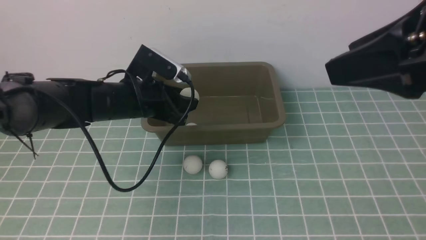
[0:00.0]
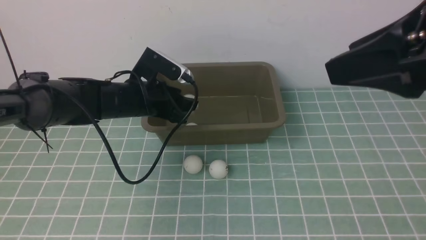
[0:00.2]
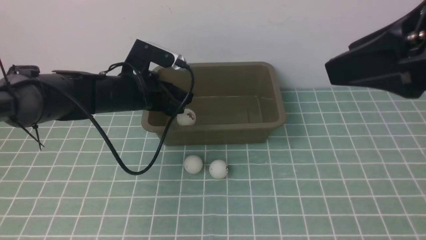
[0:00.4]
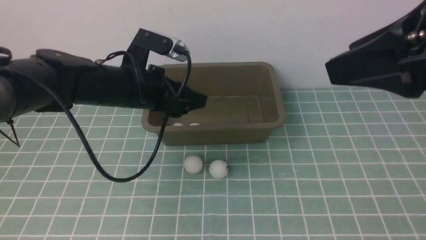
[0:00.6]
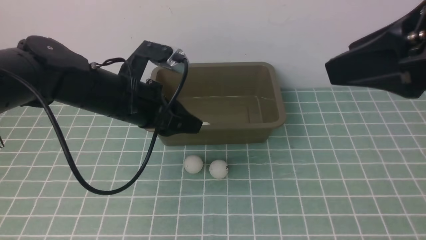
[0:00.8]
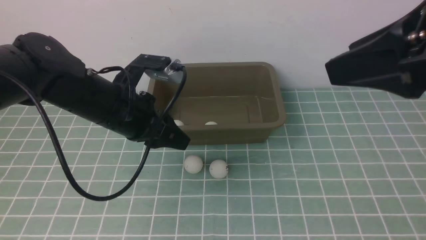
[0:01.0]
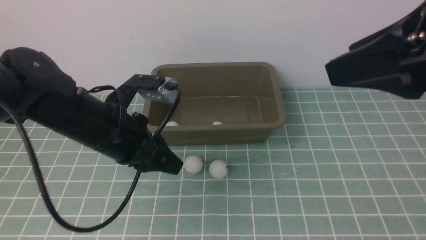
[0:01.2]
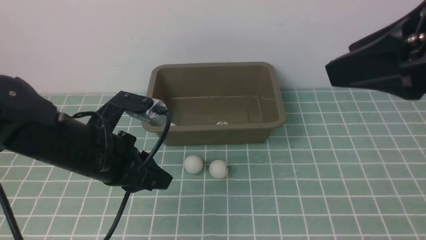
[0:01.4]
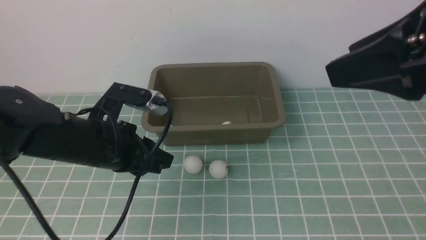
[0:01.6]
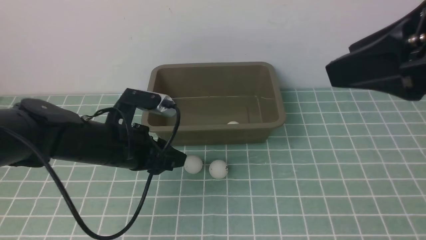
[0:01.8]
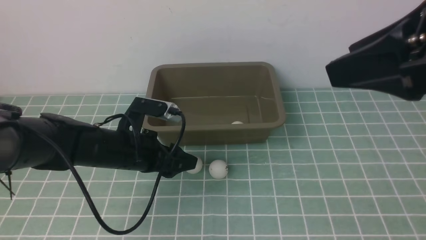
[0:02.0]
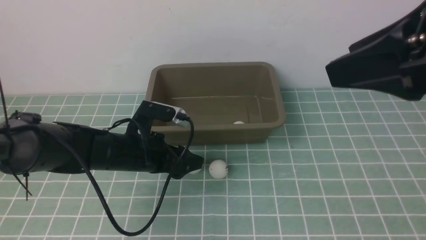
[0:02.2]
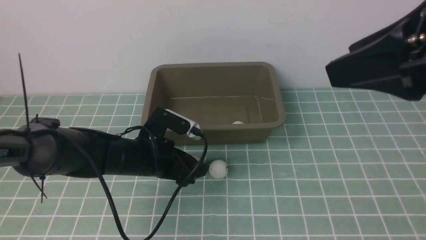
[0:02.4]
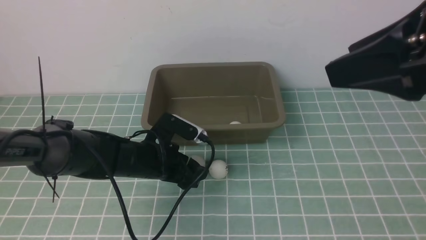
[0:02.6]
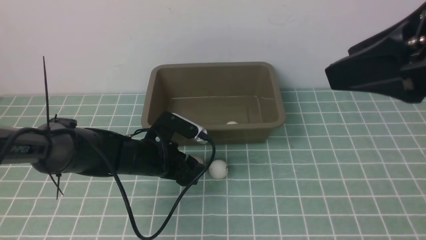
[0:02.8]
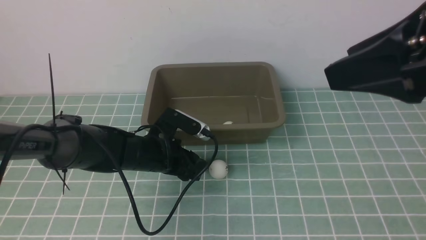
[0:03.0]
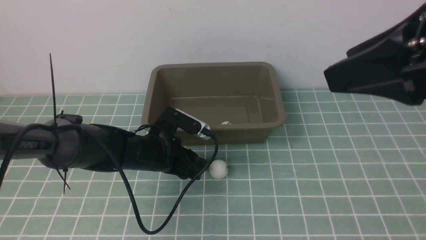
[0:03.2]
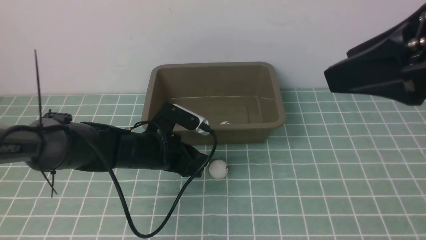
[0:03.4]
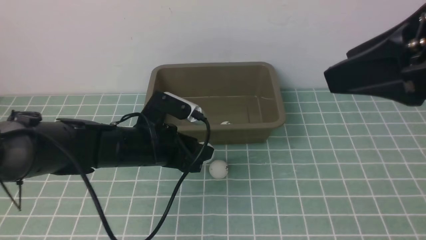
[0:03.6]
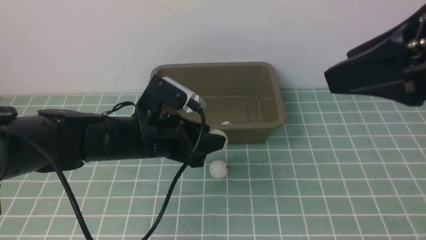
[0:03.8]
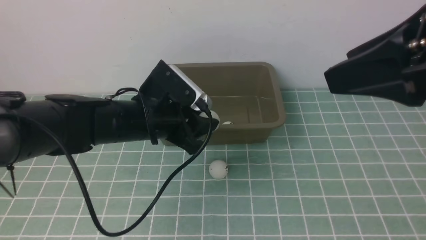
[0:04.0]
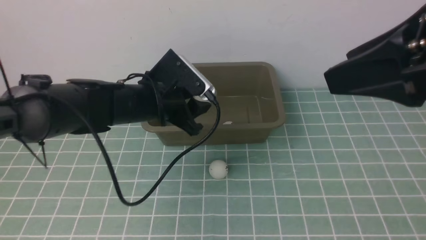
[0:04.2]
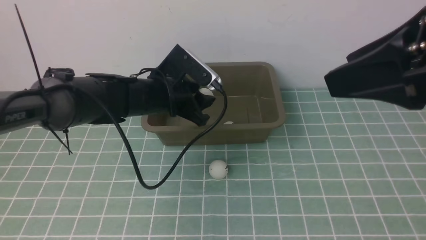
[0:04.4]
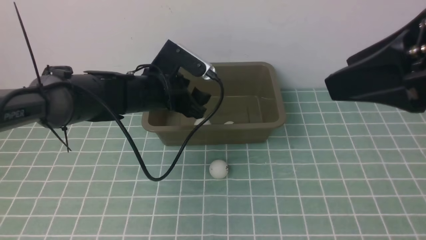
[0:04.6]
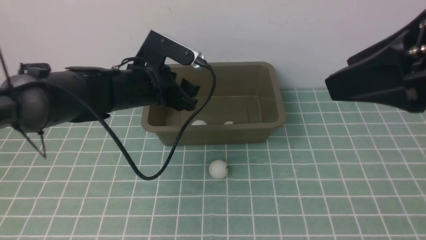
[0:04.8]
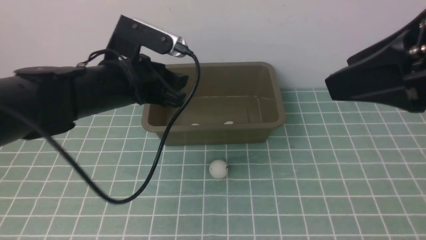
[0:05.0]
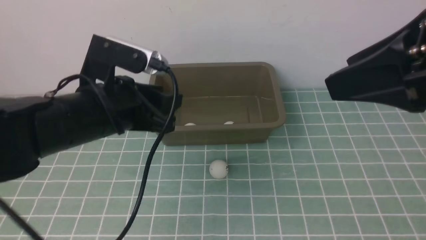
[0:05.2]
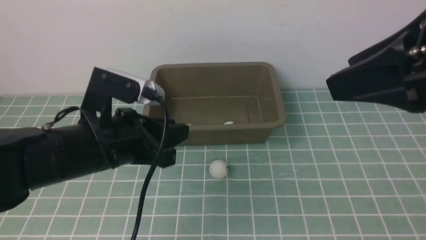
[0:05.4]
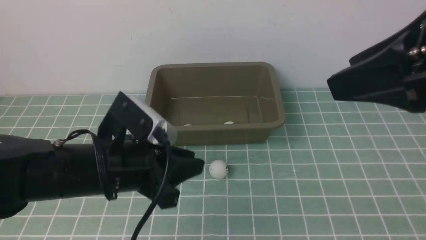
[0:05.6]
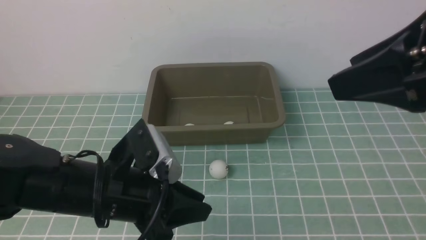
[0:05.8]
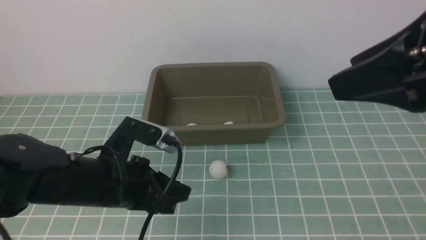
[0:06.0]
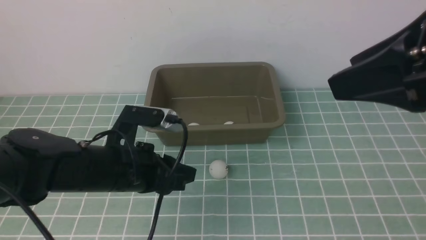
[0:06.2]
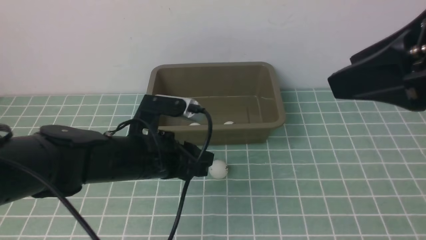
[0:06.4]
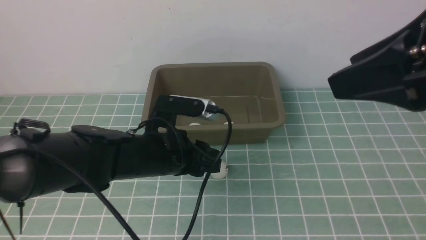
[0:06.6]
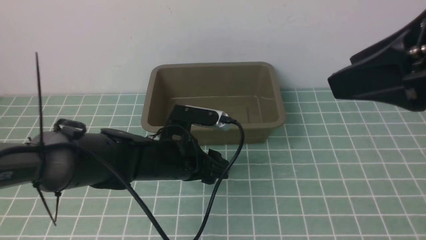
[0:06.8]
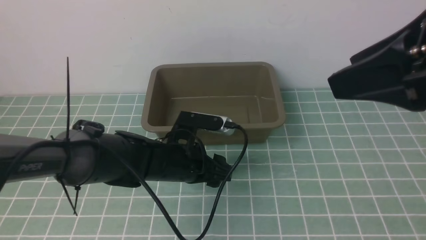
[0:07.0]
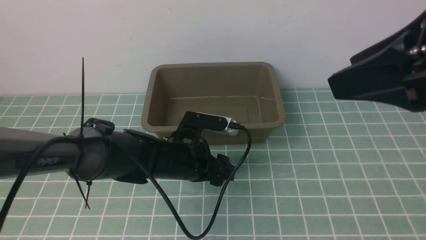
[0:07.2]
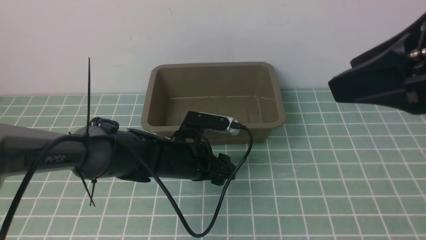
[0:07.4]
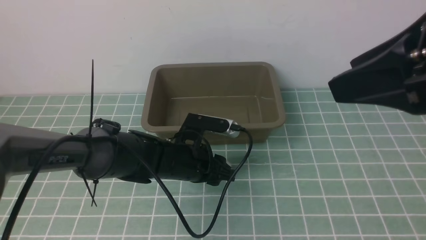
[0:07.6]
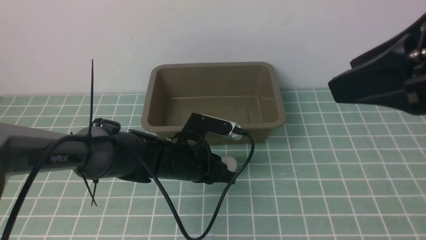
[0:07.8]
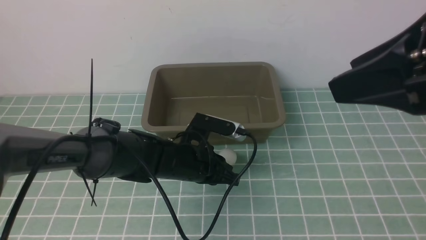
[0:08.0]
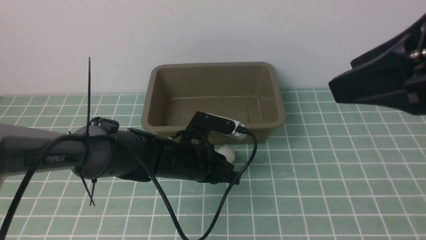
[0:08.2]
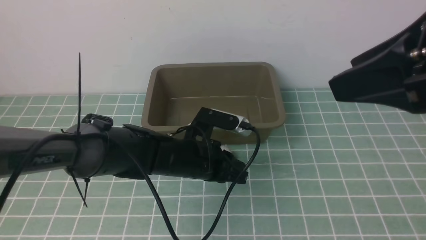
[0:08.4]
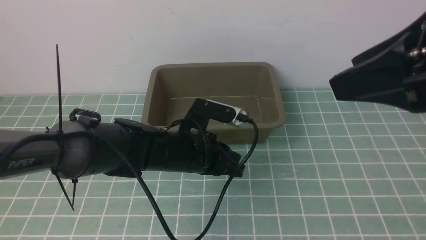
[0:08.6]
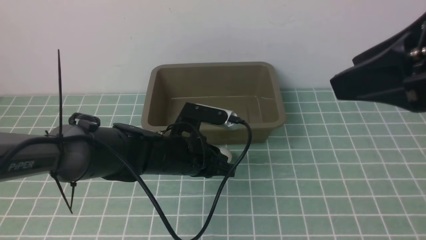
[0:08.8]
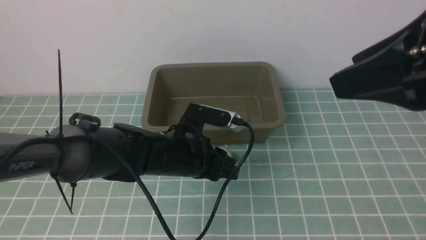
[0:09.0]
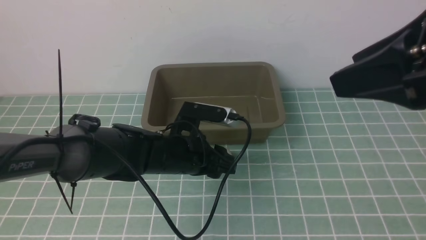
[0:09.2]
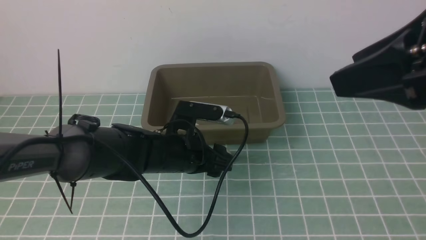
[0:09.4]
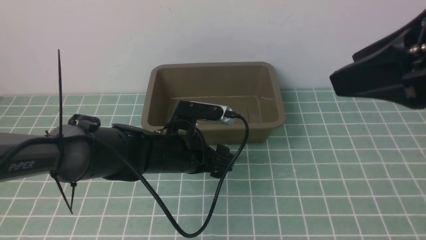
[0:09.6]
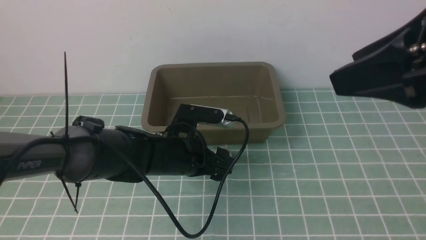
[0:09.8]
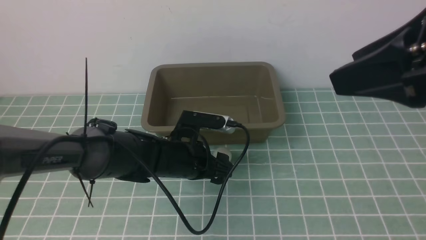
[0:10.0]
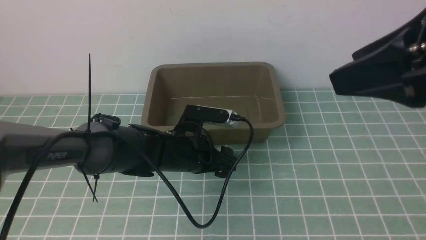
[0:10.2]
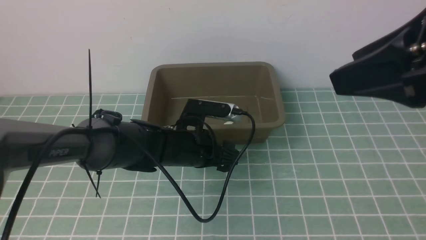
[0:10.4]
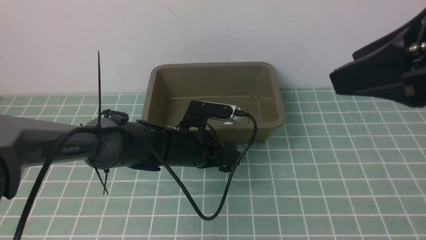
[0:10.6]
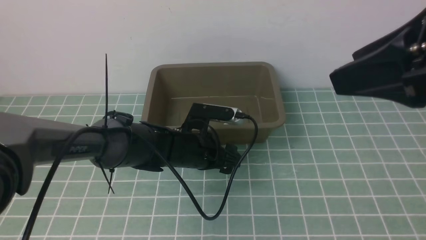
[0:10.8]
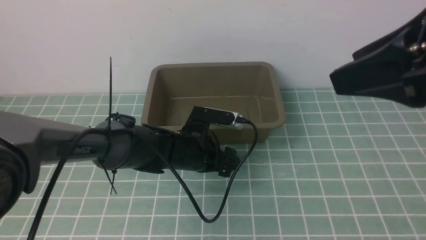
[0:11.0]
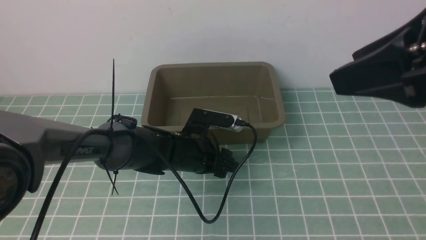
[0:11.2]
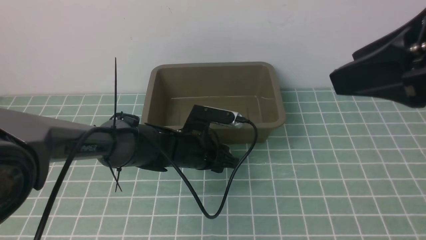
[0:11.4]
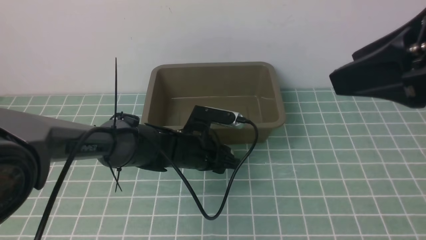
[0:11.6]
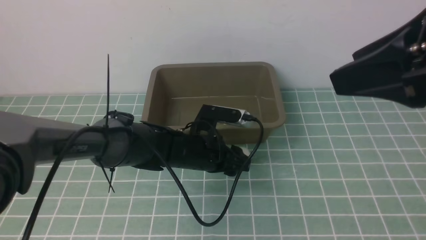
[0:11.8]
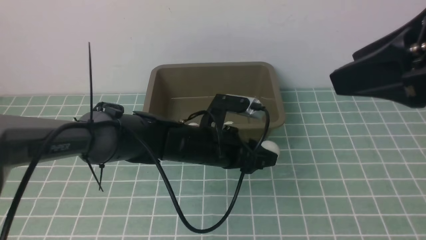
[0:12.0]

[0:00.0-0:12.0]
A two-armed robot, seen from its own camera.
Step, 0:00.6 to 0:03.4: use the left arm to clamp the table tennis ball closest to it.
Step, 0:03.6 to 0:04.6: use the left arm to put the table tennis ball into the box.
Step, 0:04.8 to 0:11.8: use the left arm to clamp the table tennis ball closest to it.
0:00.0 to 0:01.6: The left gripper heads backward, covering some 10 cm.
0:01.6 to 0:03.0: The left gripper heads downward, covering approximately 10 cm.
0:03.0 to 0:04.4: The left gripper moves upward, some 10 cm.
0:04.4 to 0:06.0: The left gripper heads backward, covering some 15 cm, and closes up.
0:06.0 to 0:07.6: The left gripper is displaced downward, forward and to the right by some 15 cm.
0:07.6 to 0:09.0: There are only small adjustments of the grippers.
0:09.0 to 0:10.4: The left gripper opens its fingers.
0:10.4 to 0:12.0: The left gripper moves upward, approximately 5 cm, and closes.

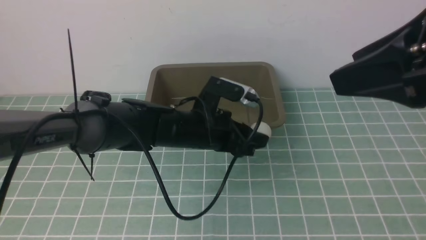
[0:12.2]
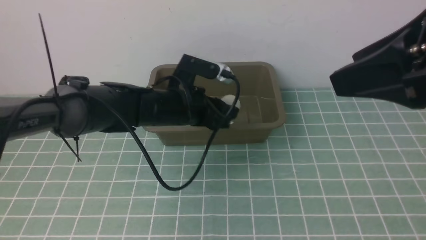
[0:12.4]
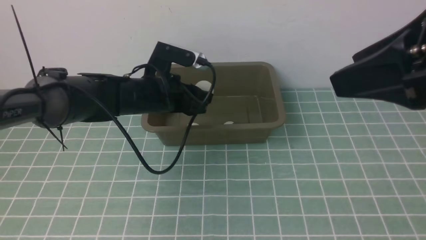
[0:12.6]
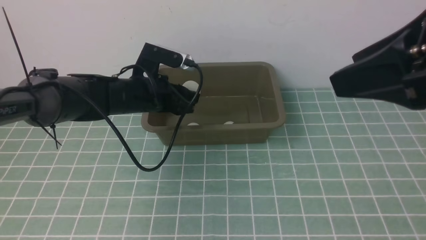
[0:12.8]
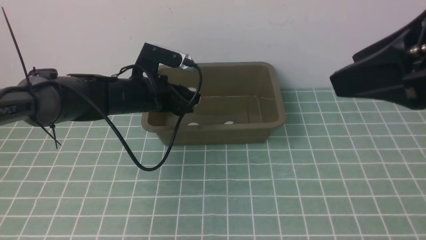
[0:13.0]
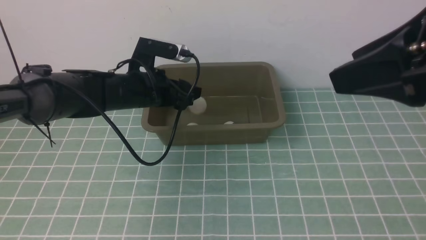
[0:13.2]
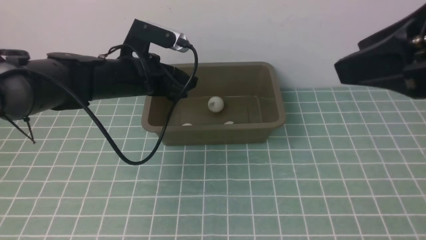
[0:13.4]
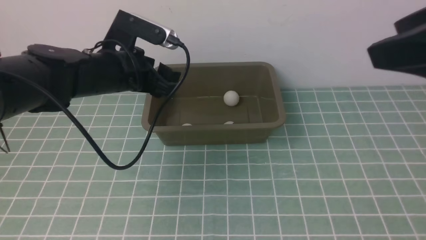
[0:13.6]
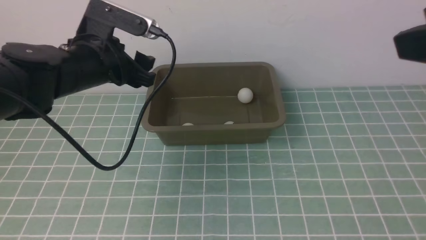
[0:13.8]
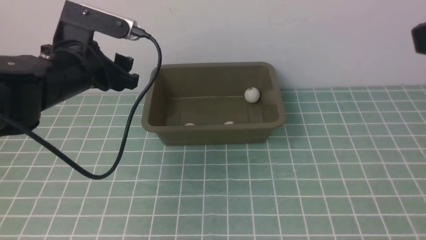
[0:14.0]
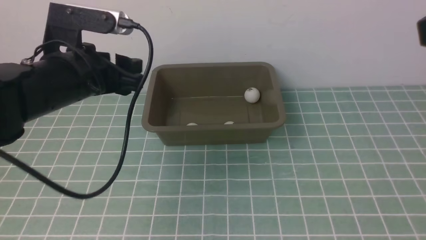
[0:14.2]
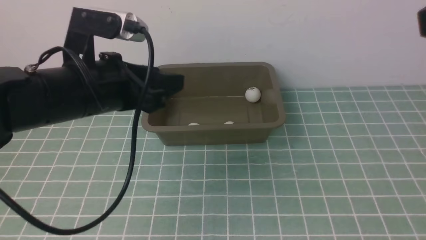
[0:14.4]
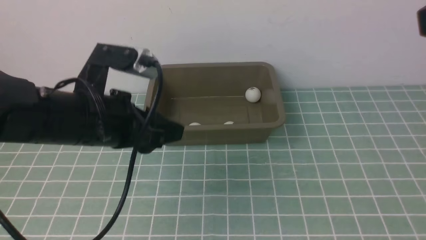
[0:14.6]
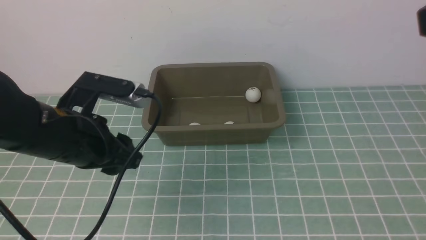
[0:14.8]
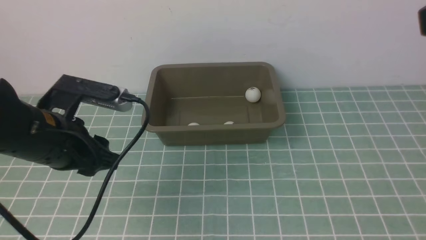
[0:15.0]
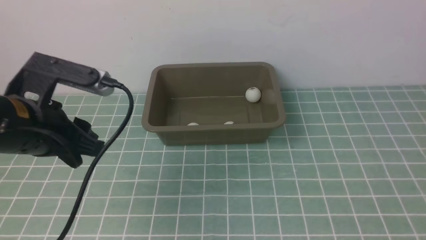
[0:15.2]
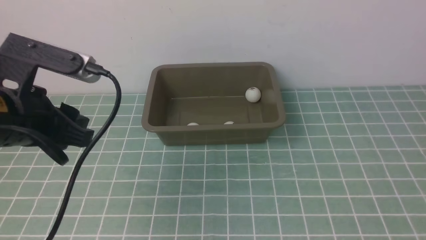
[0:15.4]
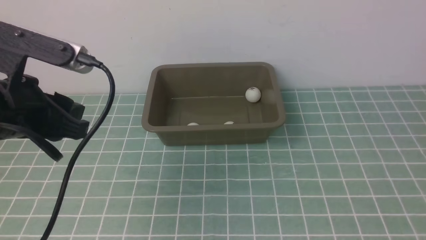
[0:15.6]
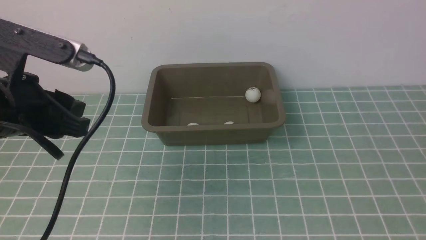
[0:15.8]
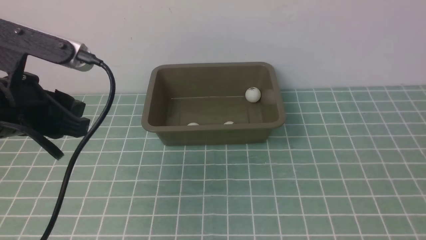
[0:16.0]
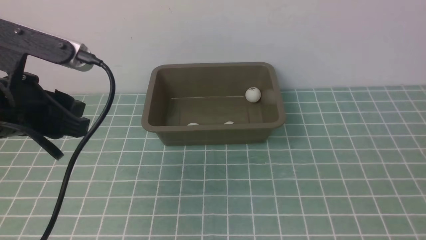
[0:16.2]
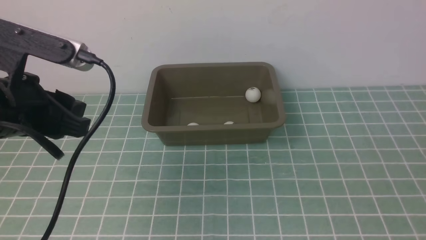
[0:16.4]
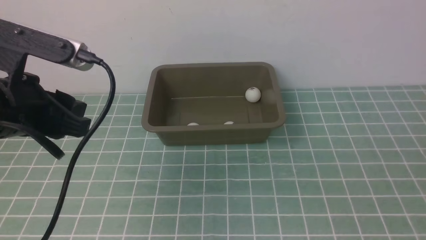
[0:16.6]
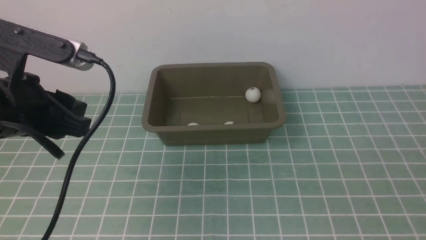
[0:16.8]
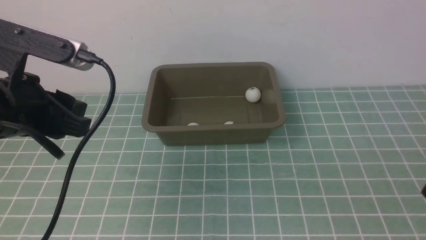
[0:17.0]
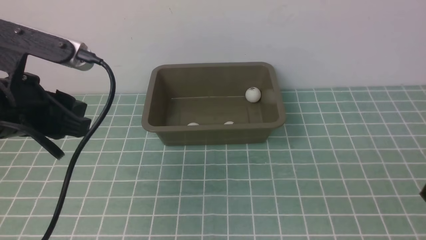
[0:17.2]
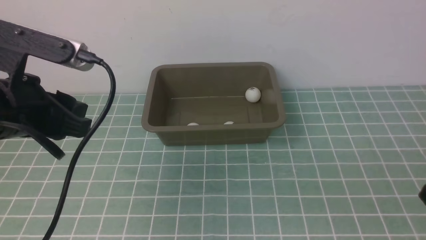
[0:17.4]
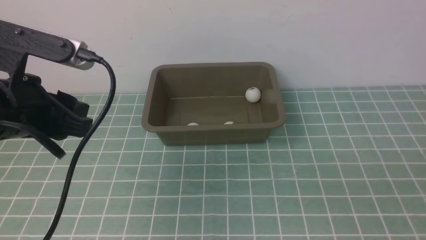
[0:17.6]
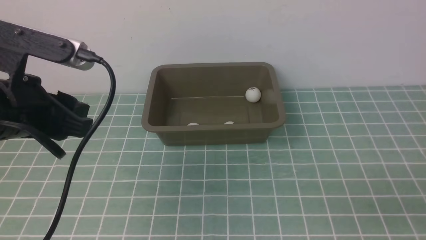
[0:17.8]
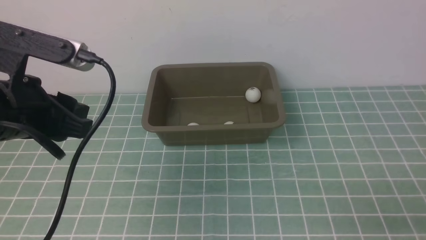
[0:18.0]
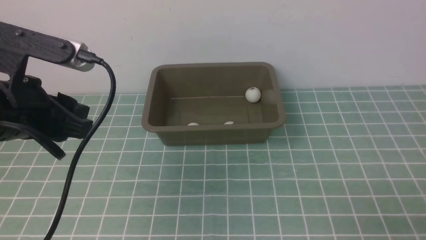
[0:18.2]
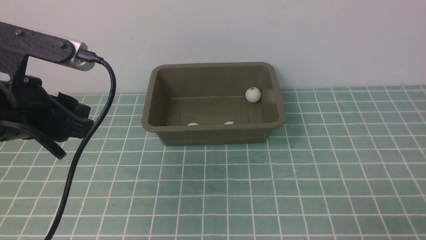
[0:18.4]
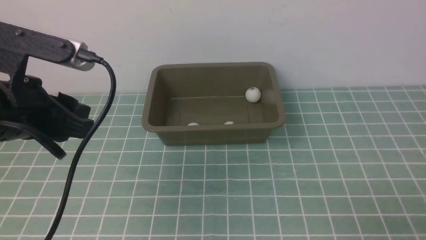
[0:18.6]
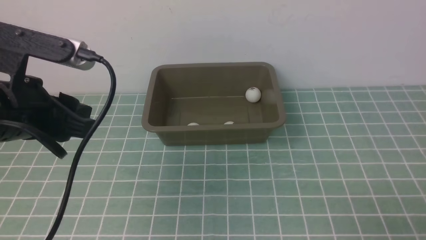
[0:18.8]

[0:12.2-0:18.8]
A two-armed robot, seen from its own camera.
Step, 0:12.2 to 0:13.2: use the left arm to put the table tennis ball into the box.
0:12.2 to 0:13.8: The left gripper goes roughly 15 cm upward, to the left and backward, while the right gripper changes place by about 5 cm.
0:13.8 to 0:15.4: The two grippers go some 10 cm backward.
